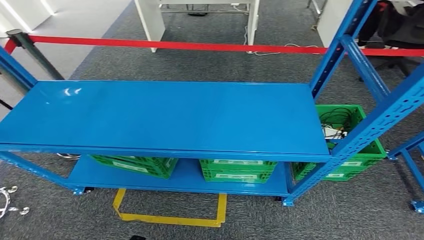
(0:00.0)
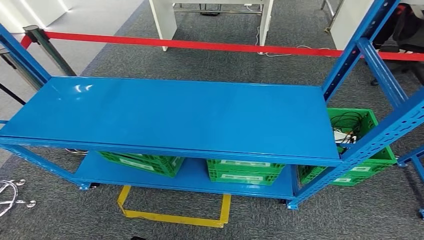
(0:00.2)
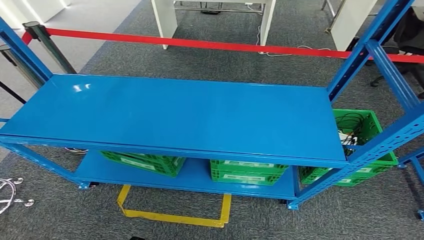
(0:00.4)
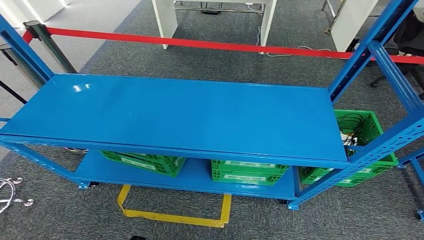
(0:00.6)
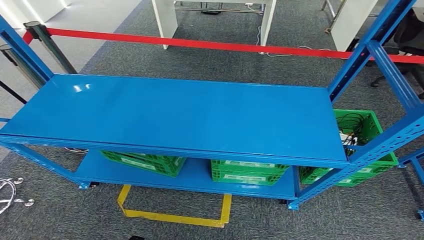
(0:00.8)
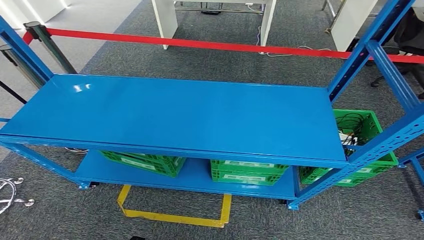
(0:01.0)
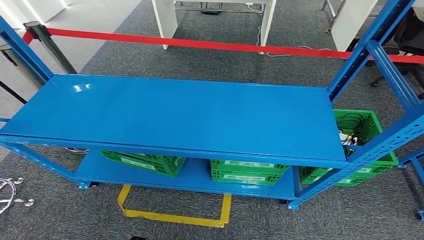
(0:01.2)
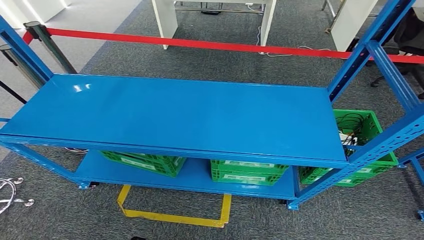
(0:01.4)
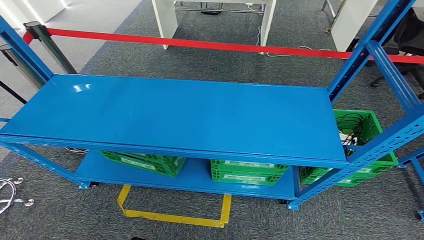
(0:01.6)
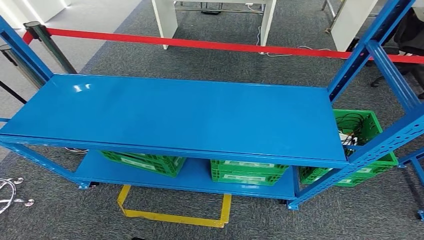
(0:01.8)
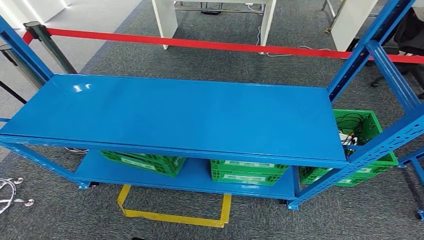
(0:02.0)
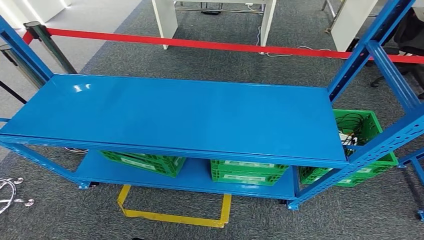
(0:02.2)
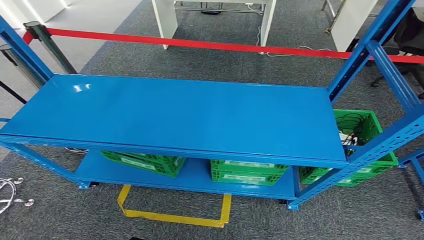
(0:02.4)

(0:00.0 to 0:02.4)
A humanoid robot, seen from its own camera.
Step, 0:00.0 - 0:02.2: Move to the initial position of the workbench.
0:01.2 - 0:02.4: The two hands keep their place.
